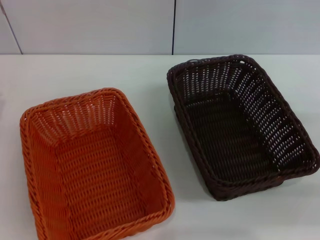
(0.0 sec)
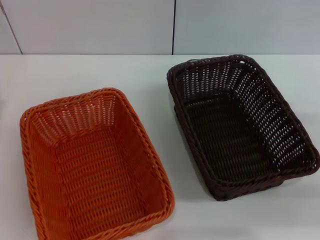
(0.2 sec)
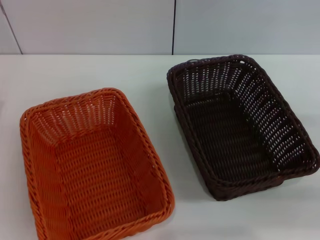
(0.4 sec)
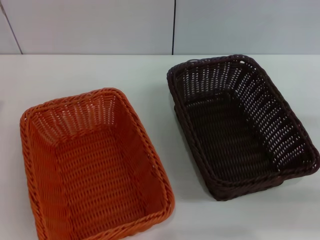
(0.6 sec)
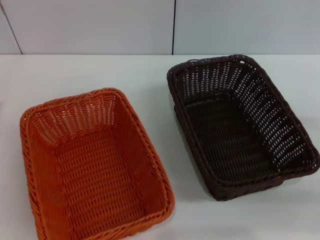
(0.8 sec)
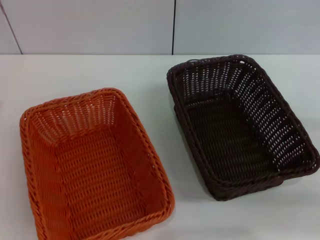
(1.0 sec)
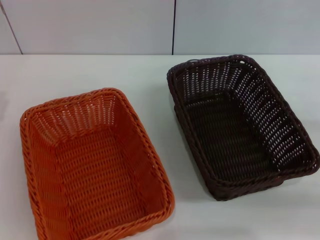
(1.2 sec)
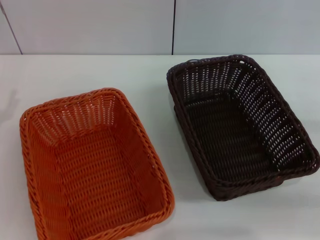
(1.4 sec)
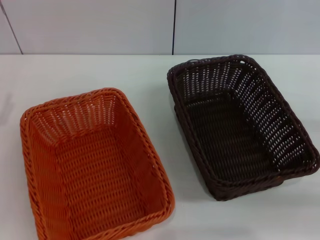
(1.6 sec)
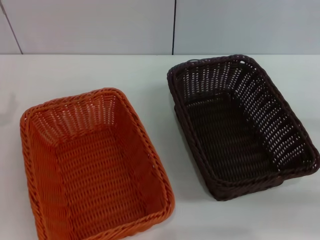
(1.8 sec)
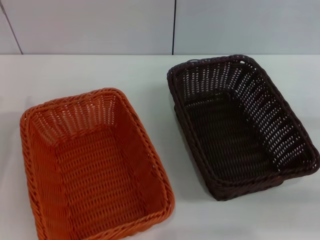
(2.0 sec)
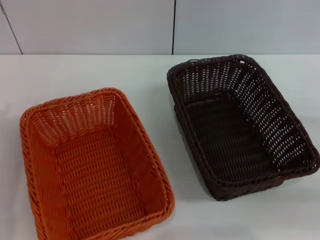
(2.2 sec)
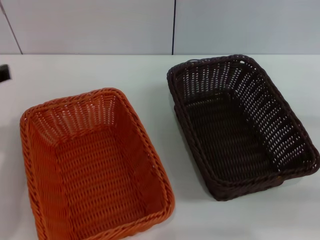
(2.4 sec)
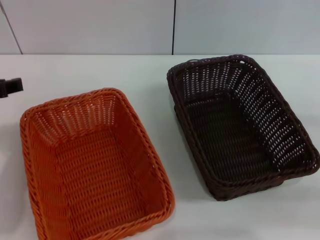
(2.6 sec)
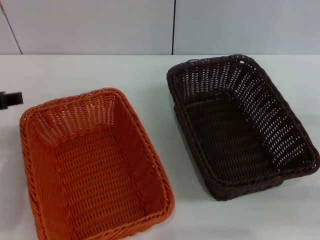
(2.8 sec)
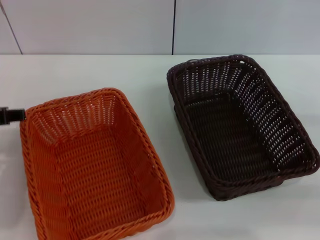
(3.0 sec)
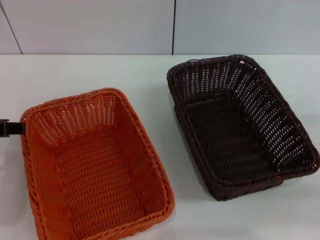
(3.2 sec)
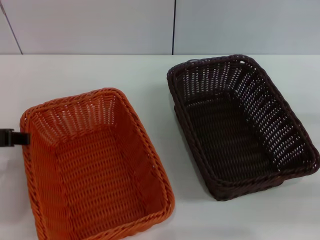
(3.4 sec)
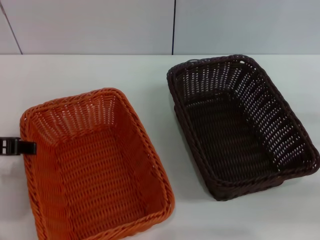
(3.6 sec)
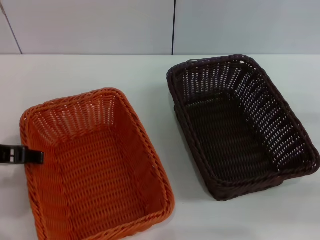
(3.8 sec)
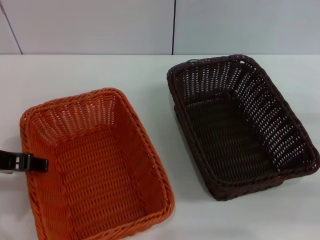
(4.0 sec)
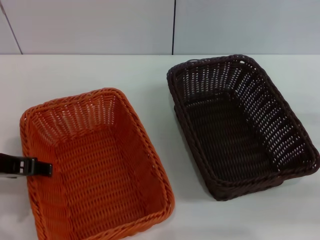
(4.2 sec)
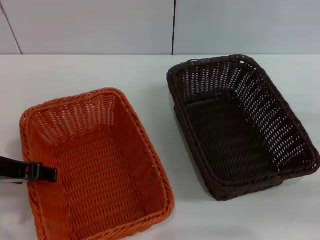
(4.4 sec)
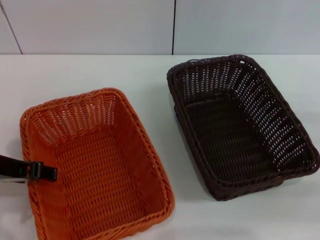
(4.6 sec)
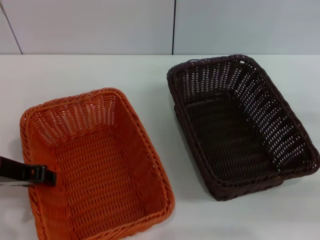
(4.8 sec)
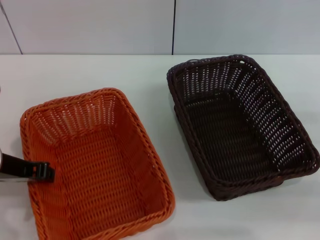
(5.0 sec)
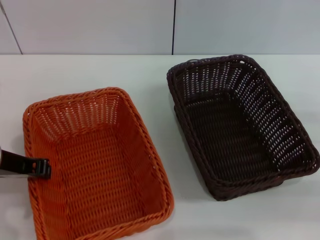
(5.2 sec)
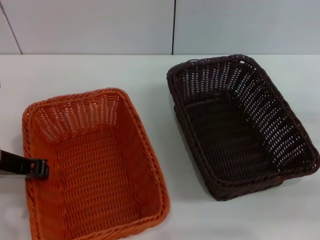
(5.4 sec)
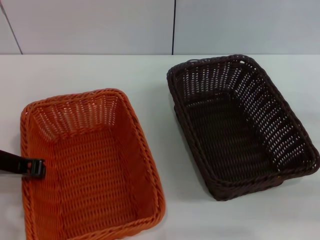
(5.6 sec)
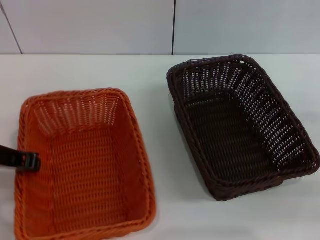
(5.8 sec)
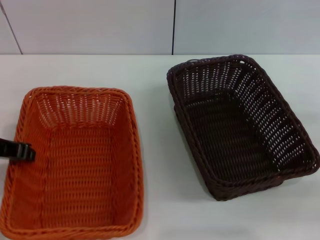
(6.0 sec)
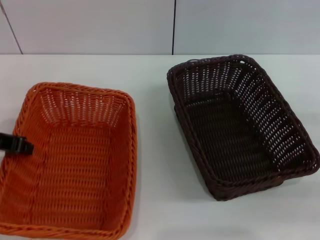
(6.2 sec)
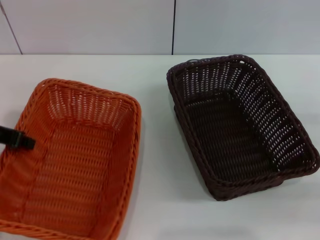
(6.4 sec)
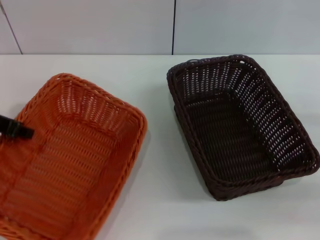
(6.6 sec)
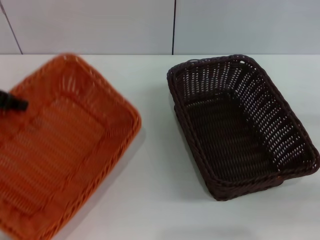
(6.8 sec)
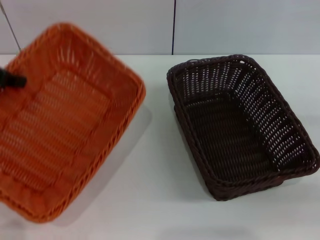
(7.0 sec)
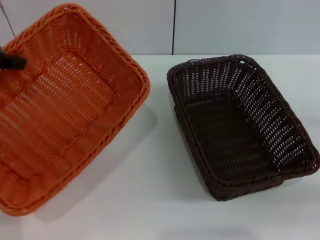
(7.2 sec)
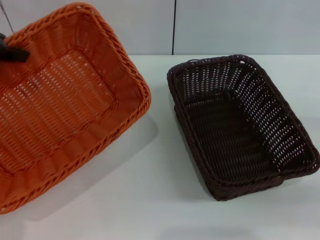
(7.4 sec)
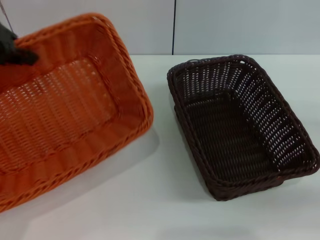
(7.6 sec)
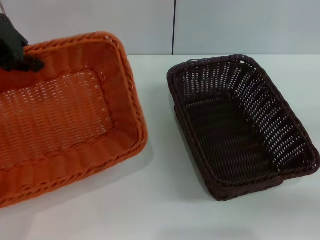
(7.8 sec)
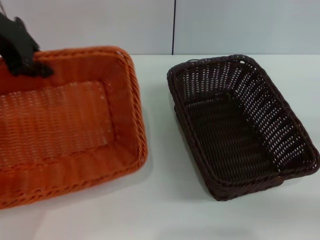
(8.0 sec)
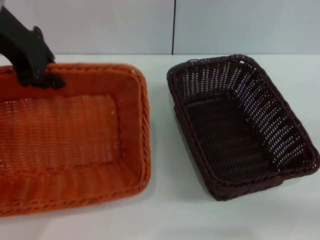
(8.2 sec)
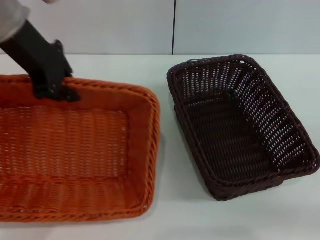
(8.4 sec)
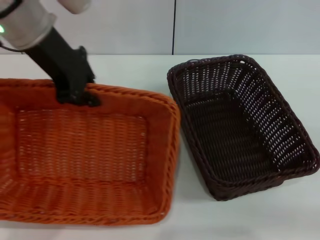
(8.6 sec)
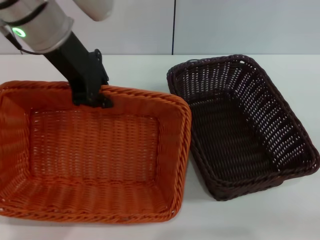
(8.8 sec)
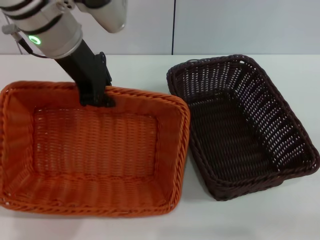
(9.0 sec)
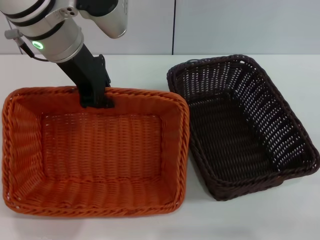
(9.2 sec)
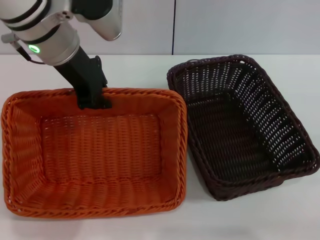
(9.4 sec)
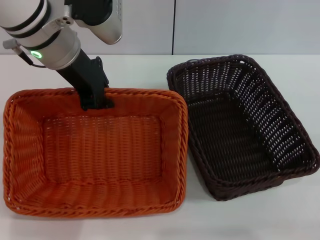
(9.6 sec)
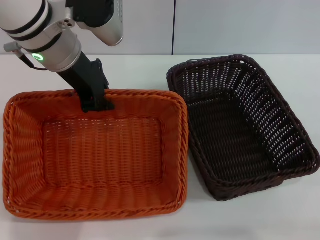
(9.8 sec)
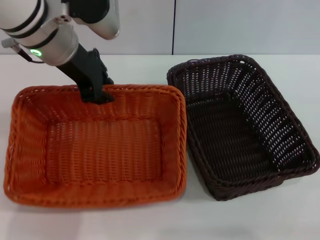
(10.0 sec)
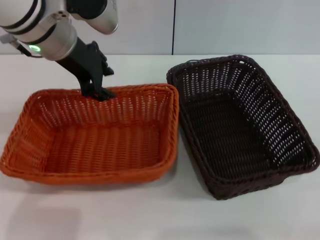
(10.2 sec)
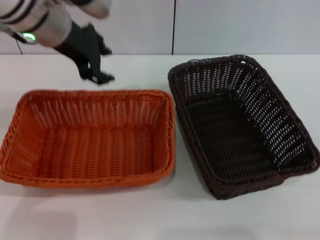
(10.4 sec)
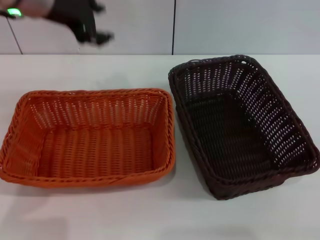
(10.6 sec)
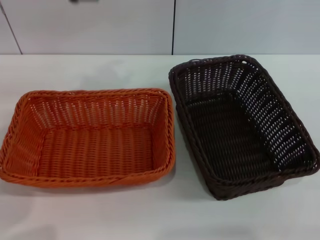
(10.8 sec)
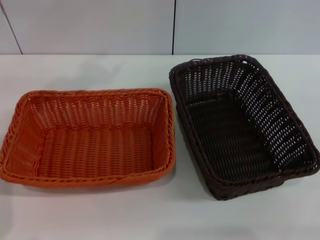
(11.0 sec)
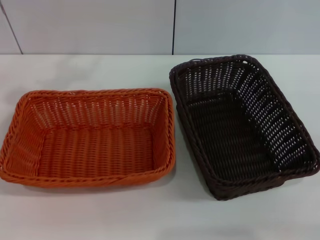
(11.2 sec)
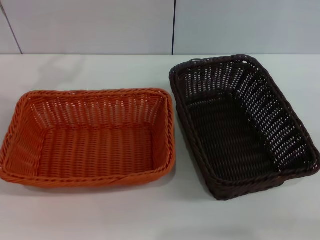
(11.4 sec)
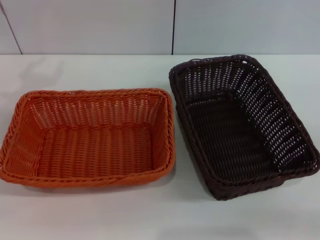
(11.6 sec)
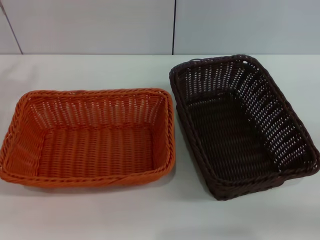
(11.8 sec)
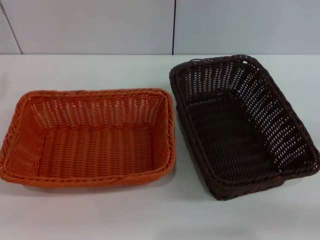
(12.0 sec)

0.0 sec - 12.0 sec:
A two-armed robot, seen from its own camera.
Step, 0.0 sec - 6.6 sec: Pick up the light basket with the left gripper.
Step, 6.8 sec - 10.4 sec: Place the light basket in the center of view with the left gripper.
1.6 sec - 3.0 sec: The left gripper shifts approximately 10 cm to the right and upward.
3.0 sec - 4.4 sec: The grippers move only a little.
4.4 sec - 6.0 sec: The left gripper closes its fingers.
6.0 sec - 7.6 sec: The left gripper shifts approximately 15 cm upward and forward.
7.6 sec - 9.0 sec: The right gripper travels backward by some 5 cm. The left gripper goes some 15 cm to the right.
9.0 sec - 10.4 sec: The left gripper opens.
10.4 sec - 12.0 sec: The left gripper goes roughly 25 cm to the left and backward.

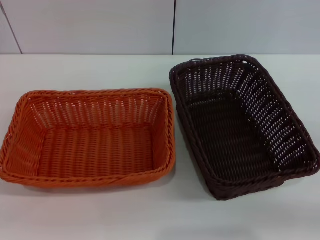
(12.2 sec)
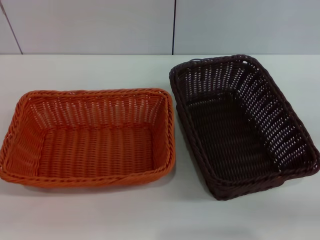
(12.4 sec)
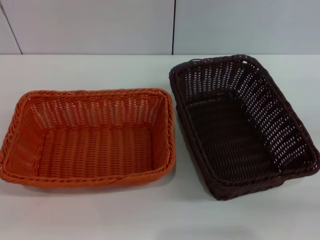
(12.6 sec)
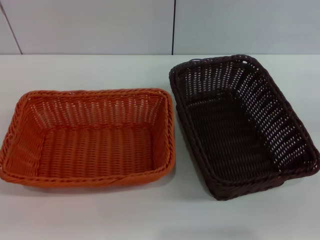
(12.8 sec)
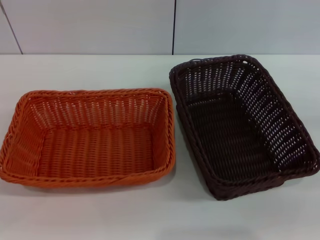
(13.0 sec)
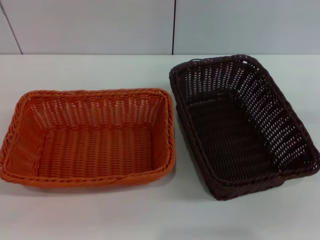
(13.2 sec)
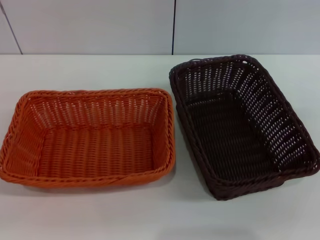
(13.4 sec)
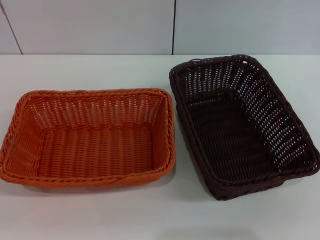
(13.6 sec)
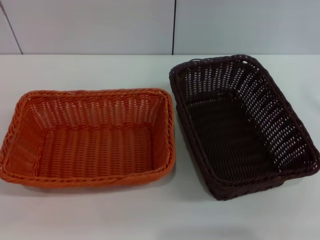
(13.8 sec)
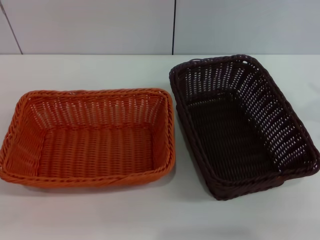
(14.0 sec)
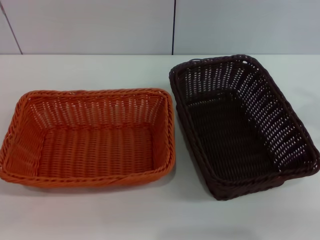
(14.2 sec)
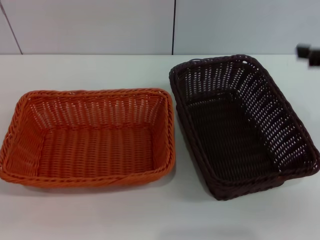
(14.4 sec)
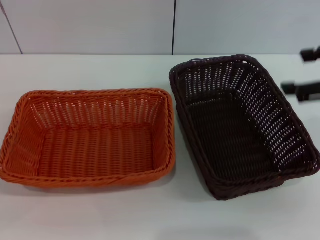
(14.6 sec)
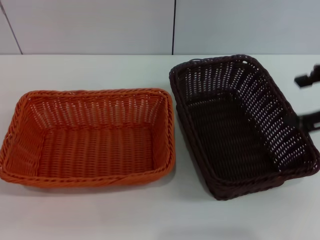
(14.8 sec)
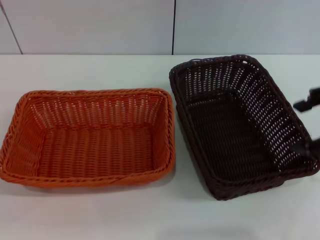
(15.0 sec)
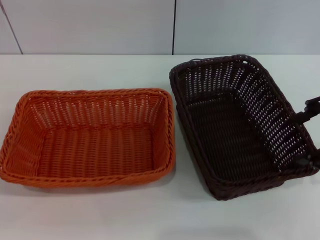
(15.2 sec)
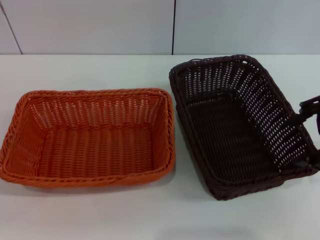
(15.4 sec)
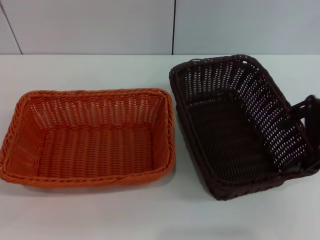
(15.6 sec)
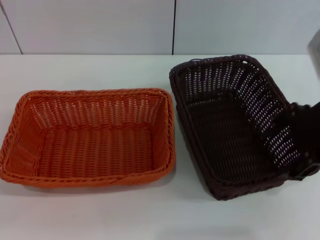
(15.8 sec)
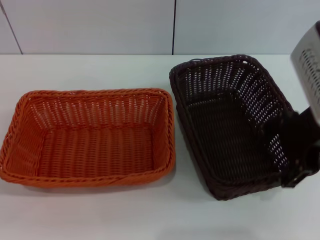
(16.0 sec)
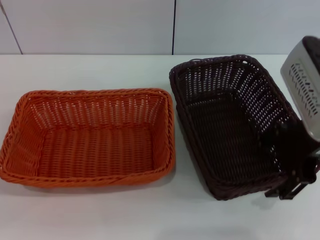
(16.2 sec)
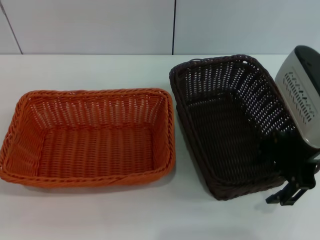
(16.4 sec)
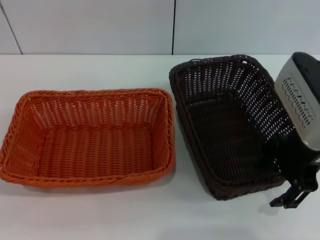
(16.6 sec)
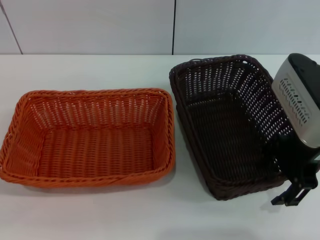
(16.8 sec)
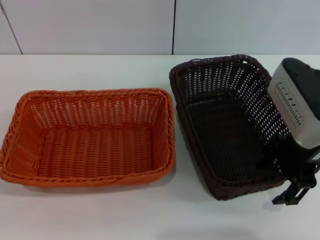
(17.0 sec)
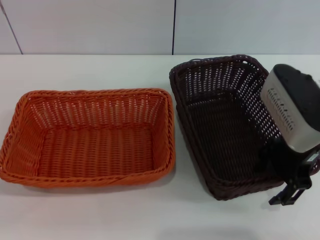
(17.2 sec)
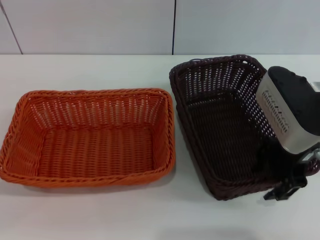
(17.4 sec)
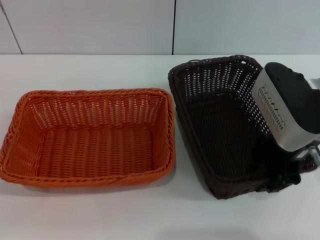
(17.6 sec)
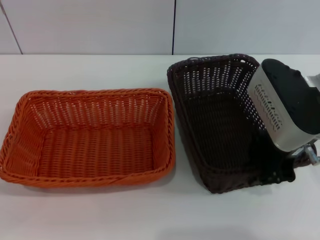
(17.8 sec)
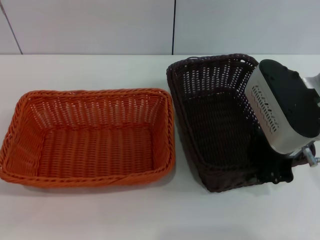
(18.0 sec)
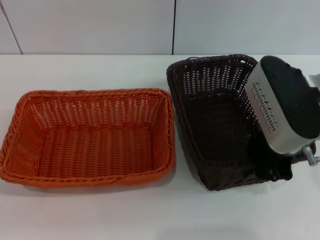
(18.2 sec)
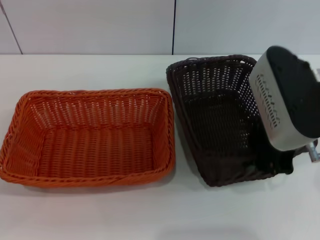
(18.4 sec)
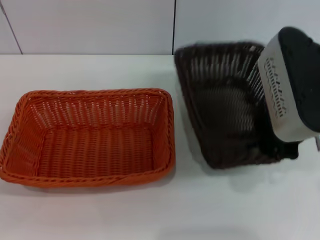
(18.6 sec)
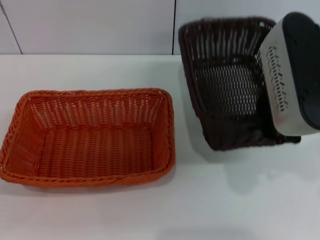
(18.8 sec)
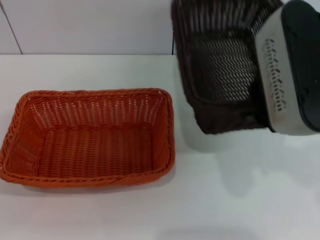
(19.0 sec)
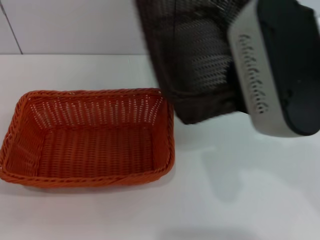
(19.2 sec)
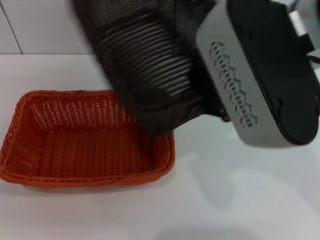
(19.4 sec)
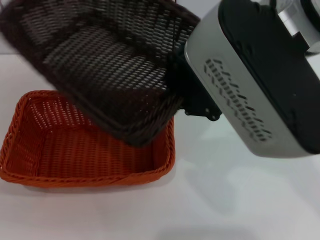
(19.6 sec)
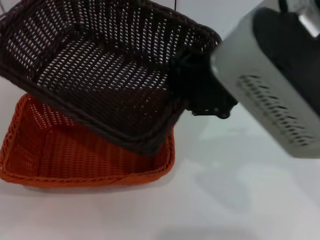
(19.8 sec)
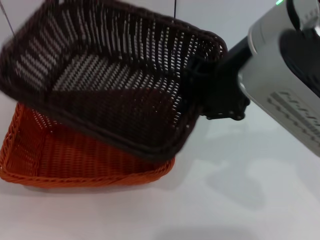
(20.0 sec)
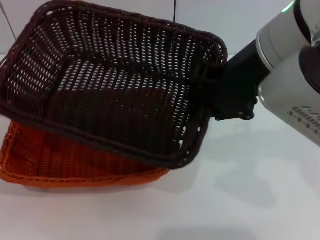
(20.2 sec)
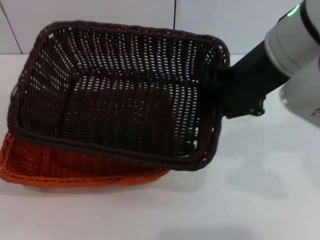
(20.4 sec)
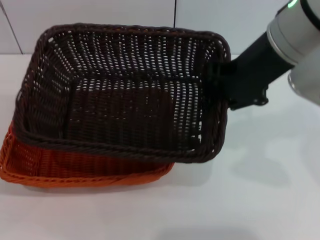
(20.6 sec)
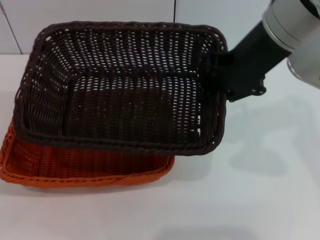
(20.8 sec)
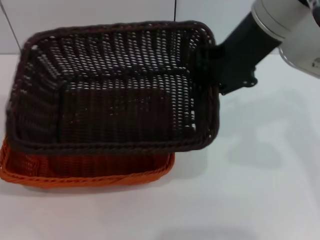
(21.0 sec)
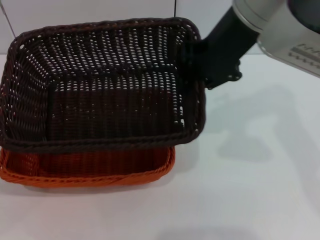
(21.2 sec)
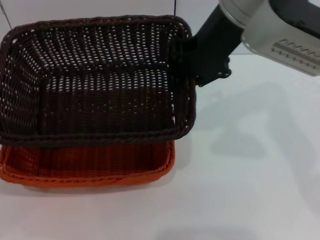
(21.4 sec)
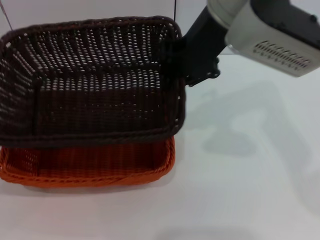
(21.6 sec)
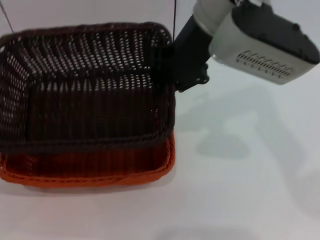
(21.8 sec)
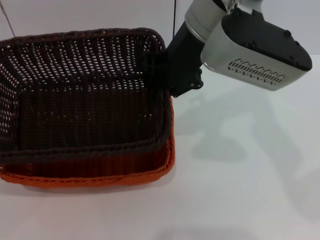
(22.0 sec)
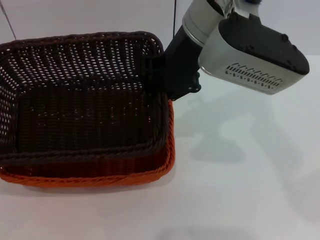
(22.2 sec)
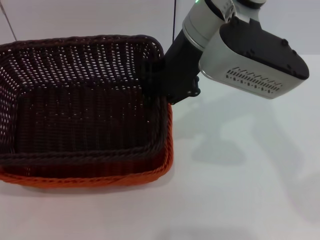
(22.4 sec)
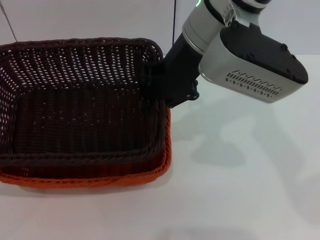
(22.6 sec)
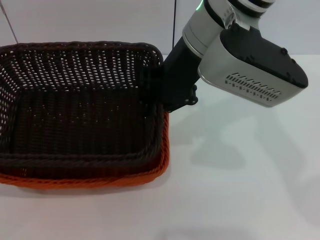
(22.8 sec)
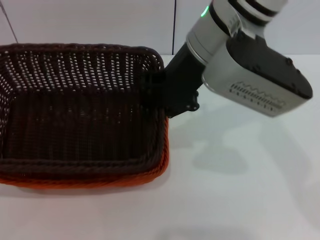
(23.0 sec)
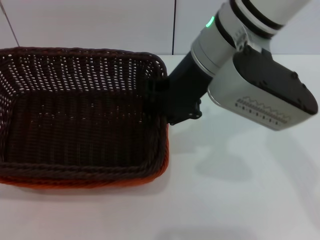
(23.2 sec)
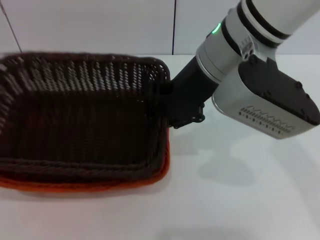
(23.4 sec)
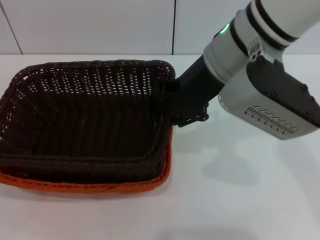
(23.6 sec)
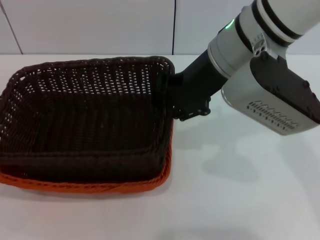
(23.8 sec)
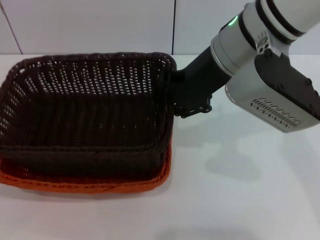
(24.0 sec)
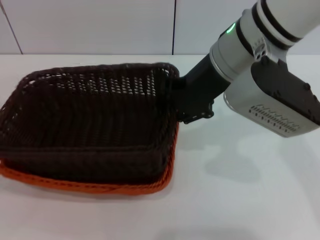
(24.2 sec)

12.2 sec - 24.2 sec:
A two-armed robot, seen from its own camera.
Step, 12.2 sec - 18.4 sec: Pick up the dark basket with the right gripper.
15.2 sec - 16.6 sec: The right gripper is displaced to the left by some 5 cm.
16.6 sec - 18.2 sec: The right gripper closes up.
18.2 sec - 19.8 sec: The right gripper shifts some 15 cm upward and to the left.
19.8 sec - 21.2 sec: The right gripper heads forward, covering roughly 10 cm.
21.2 sec - 22.6 sec: The right gripper shifts by about 5 cm.
